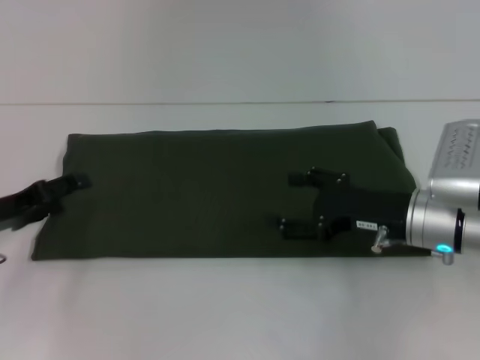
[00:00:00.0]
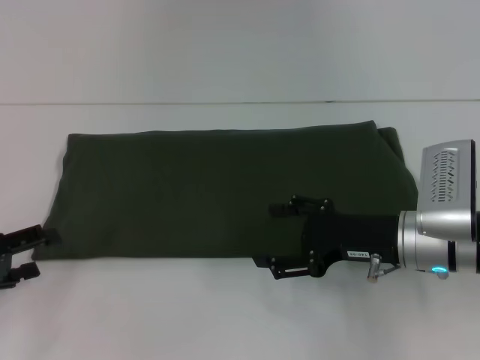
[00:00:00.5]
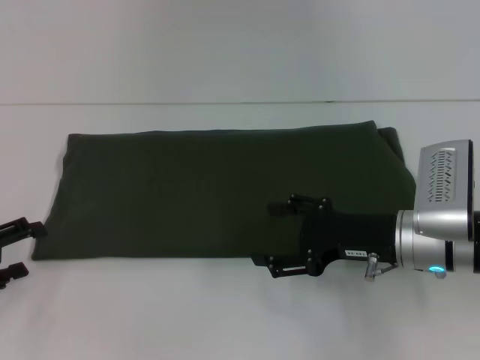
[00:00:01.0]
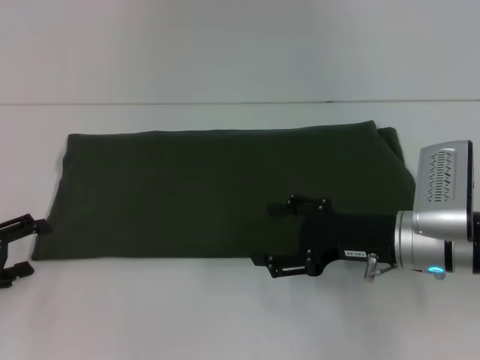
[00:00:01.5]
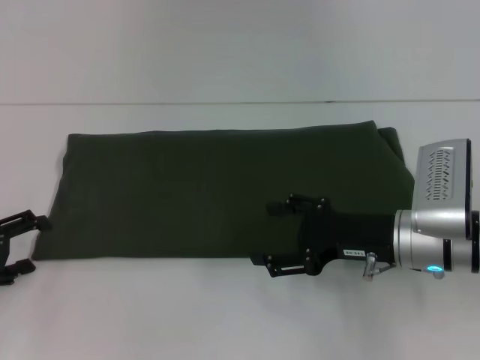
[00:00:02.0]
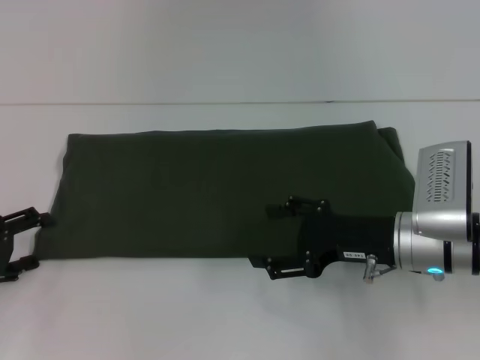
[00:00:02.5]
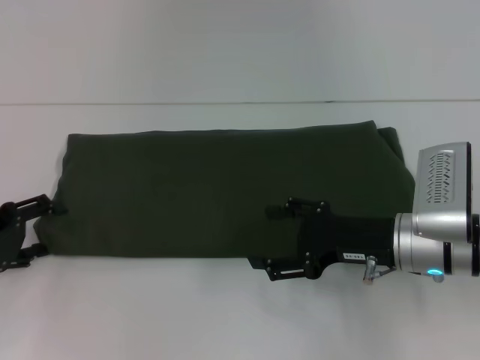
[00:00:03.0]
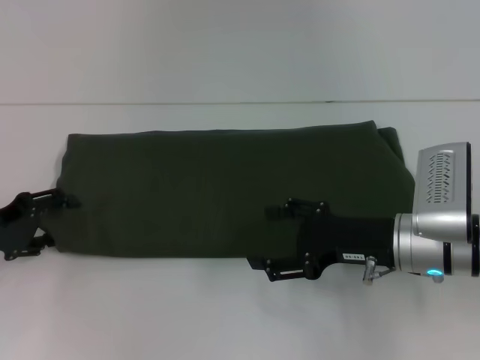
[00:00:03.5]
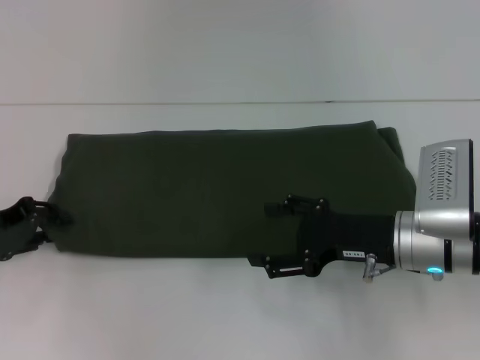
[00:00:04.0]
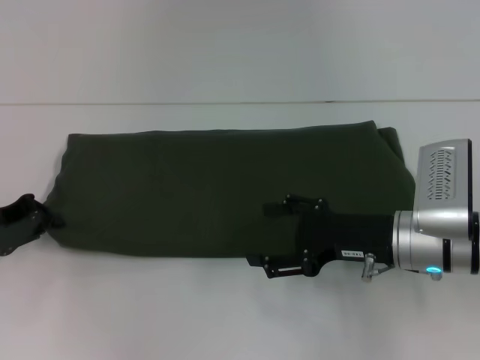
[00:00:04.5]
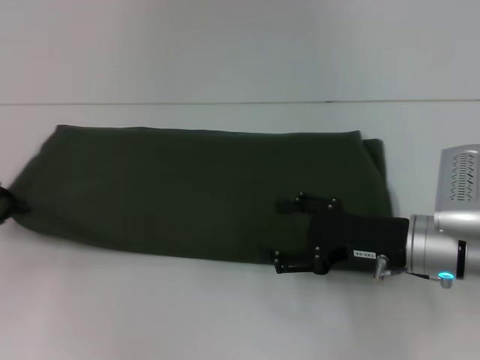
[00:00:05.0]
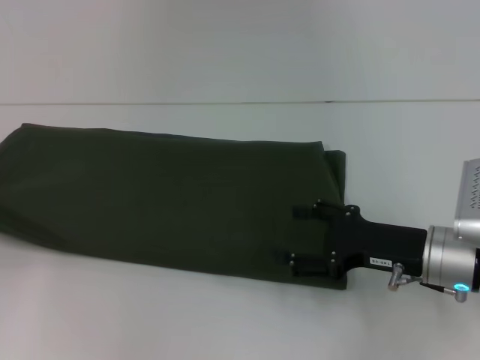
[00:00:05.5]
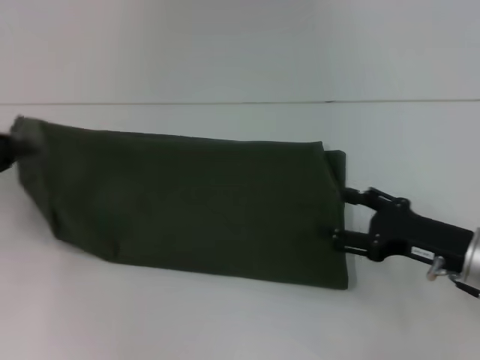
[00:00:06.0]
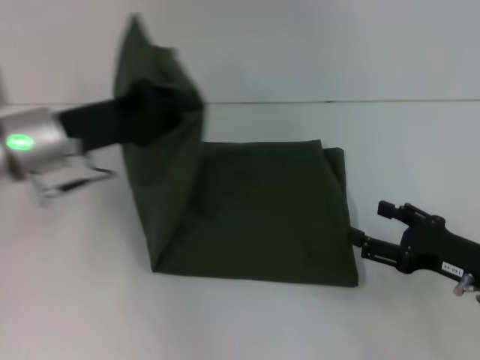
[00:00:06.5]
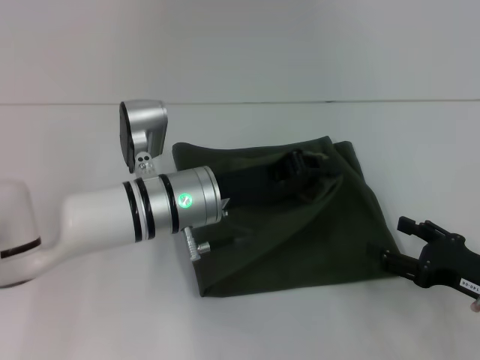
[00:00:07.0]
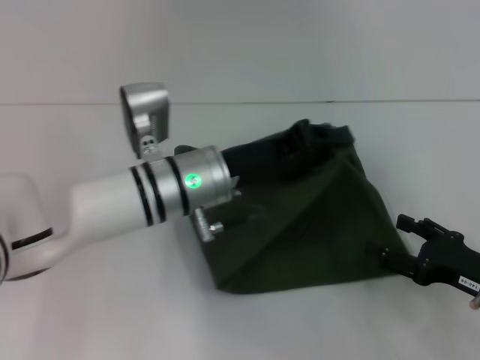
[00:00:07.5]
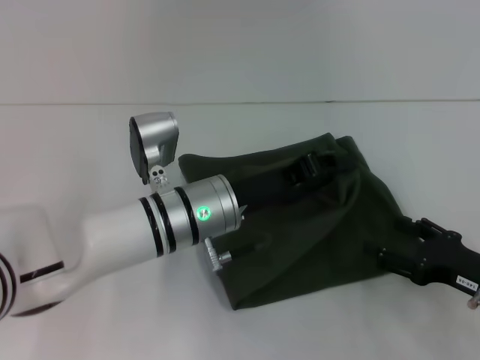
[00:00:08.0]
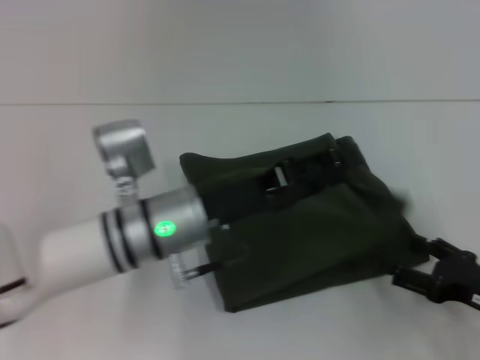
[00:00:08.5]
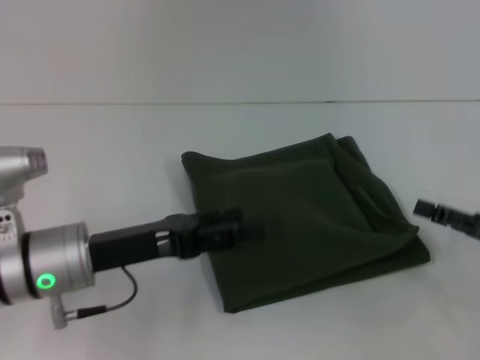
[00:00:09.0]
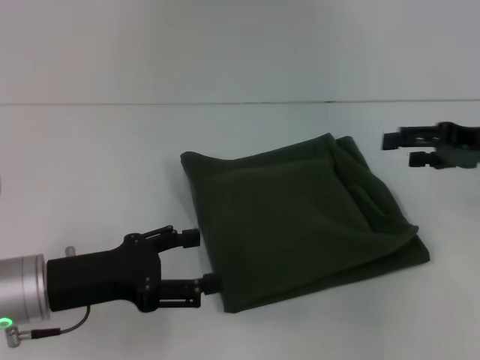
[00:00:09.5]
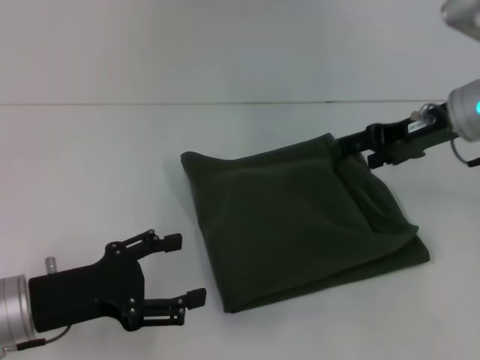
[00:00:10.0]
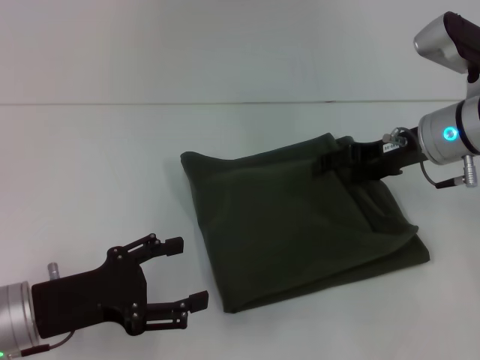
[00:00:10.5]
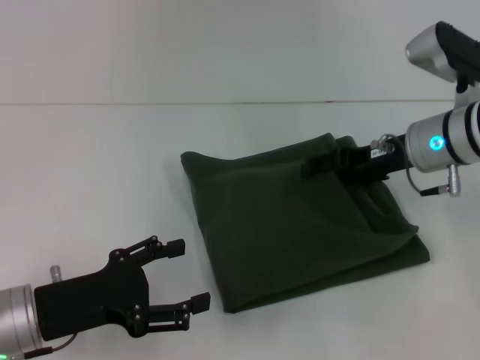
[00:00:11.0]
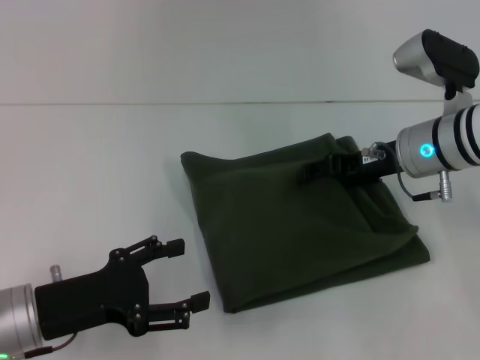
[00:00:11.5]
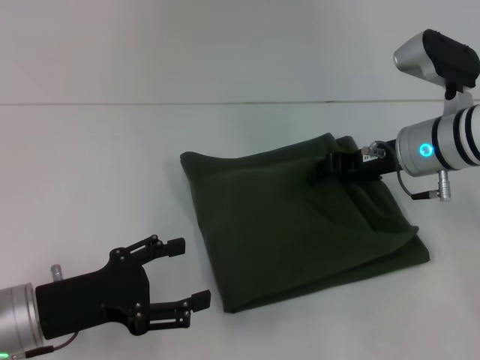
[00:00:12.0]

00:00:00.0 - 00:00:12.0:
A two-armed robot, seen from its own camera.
Step, 00:00:00.0 - 00:00:08.5: Fold the clothes with your left hand.
00:00:00.0 - 00:00:02.0: The left gripper shifts by about 5 cm.
00:00:02.0 - 00:00:04.0: The left gripper shifts by roughly 5 cm.
00:00:04.0 - 00:00:06.0: The left gripper changes place by approximately 5 cm, and closes; the right gripper is displaced to the right by roughly 5 cm.
00:00:06.0 - 00:00:08.0: The right gripper changes place by some 5 cm; the left gripper shifts roughly 30 cm to the right.
00:00:08.0 - 00:00:10.0: The left gripper travels to the left and backward by some 20 cm, and opens its fingers. The right gripper travels forward and upward by some 20 cm.
00:00:10.0 - 00:00:12.0: The right gripper shifts some 5 cm downward, and closes up.

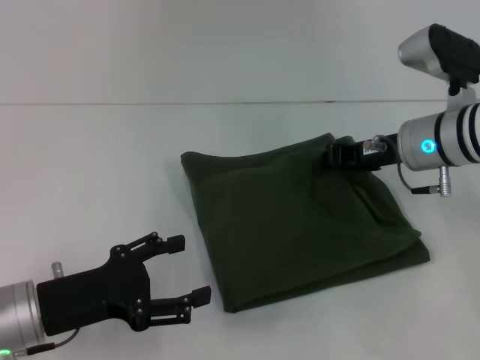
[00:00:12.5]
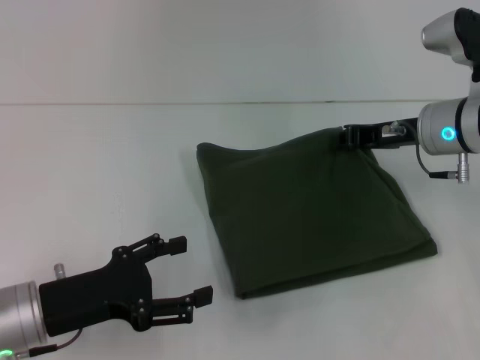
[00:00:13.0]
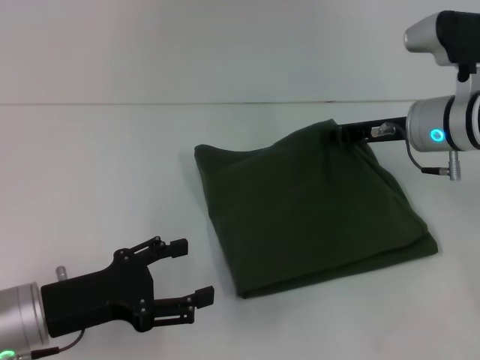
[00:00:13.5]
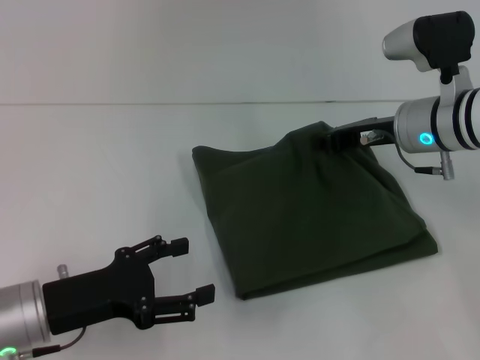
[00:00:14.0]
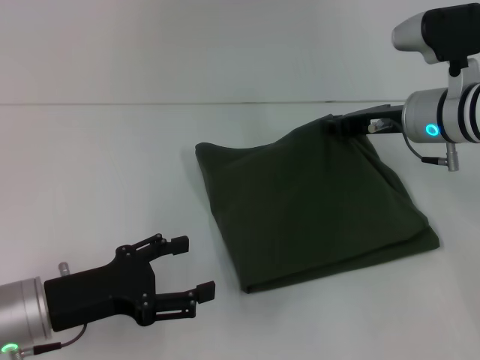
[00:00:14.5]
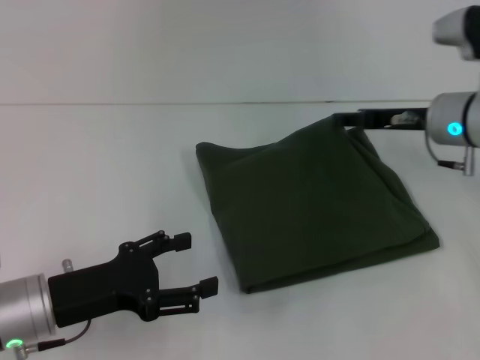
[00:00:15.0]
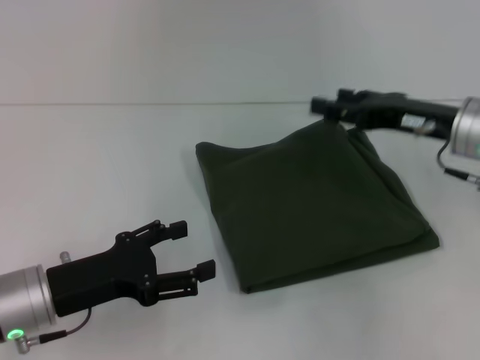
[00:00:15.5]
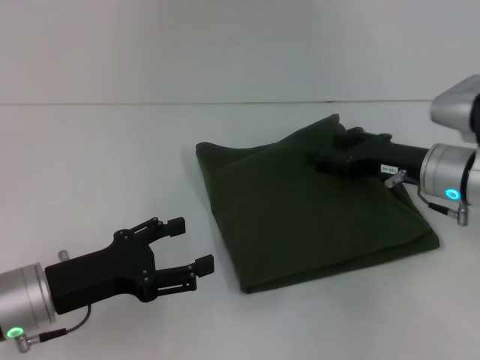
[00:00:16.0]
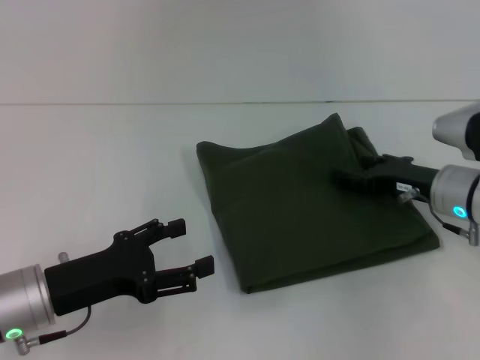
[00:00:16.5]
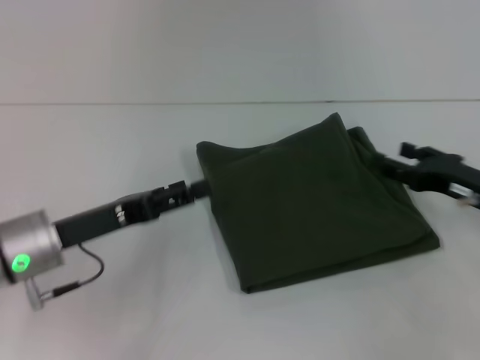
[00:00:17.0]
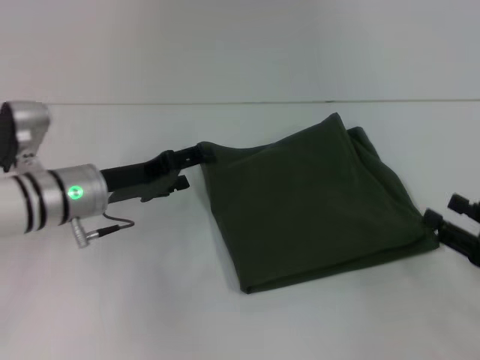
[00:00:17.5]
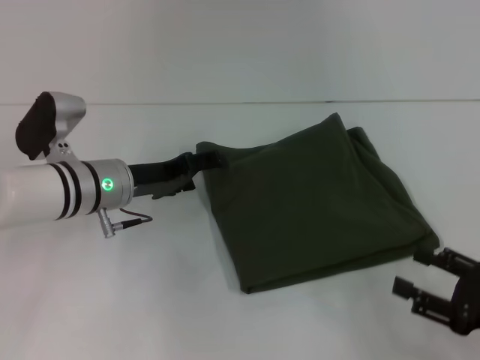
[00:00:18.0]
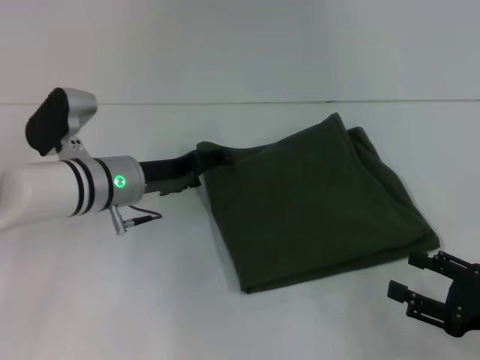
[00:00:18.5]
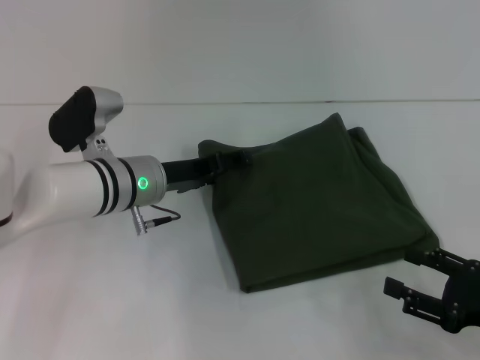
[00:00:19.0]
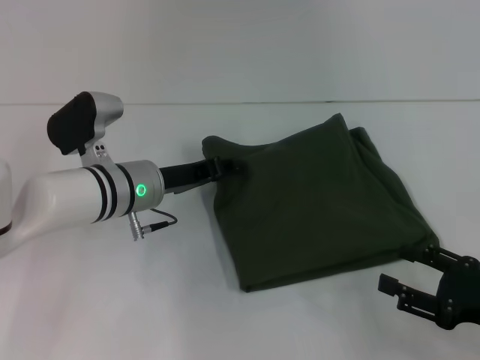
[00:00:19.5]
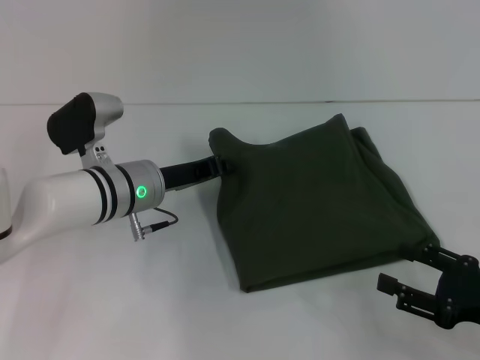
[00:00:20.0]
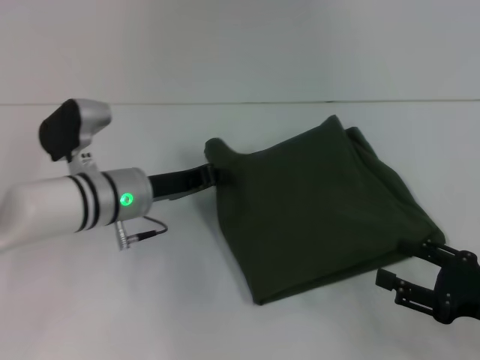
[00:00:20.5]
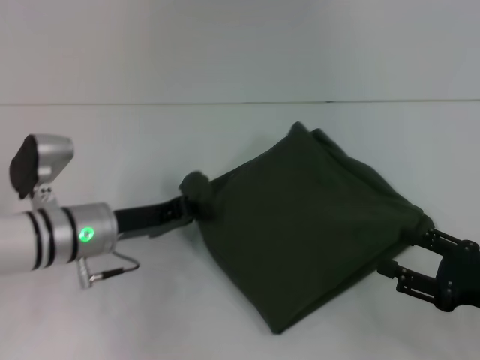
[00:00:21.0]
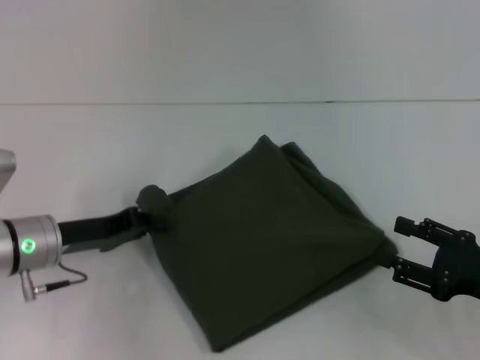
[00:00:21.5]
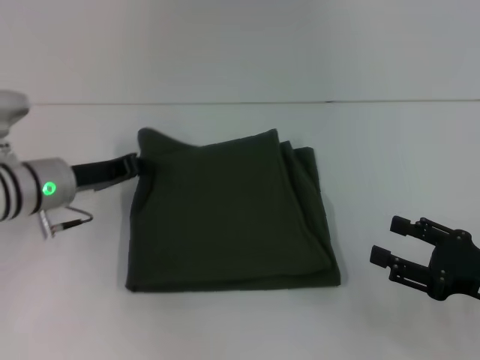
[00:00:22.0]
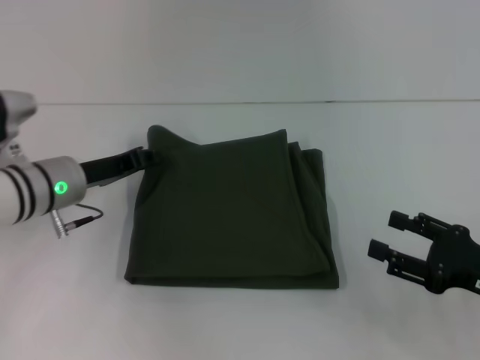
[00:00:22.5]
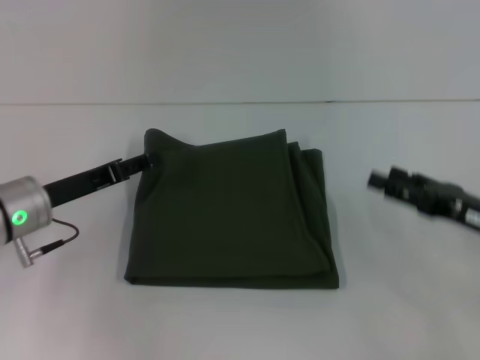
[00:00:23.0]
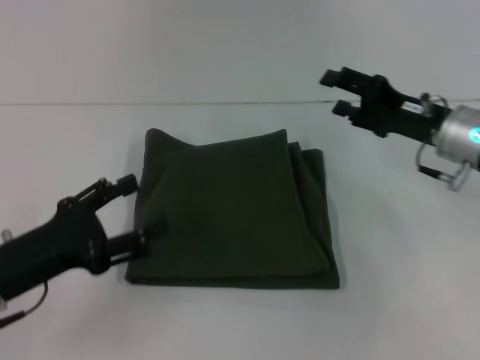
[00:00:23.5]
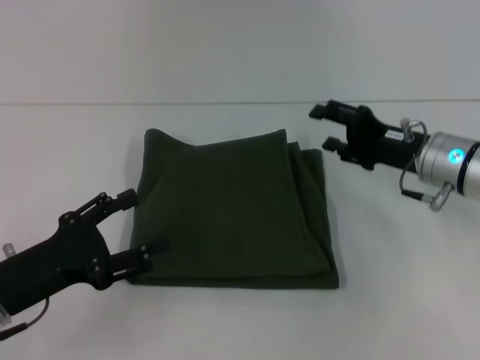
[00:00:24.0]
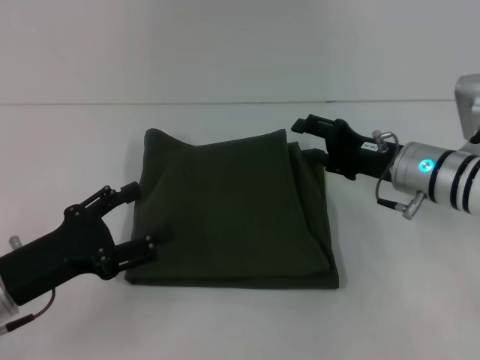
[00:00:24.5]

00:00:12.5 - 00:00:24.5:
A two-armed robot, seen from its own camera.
00:00:14.5 - 00:00:16.5: The right gripper travels downward and backward by roughly 10 cm, and opens its fingers.
00:00:16.5 - 00:00:18.5: The left gripper is displaced forward and to the right by roughly 15 cm; the right gripper travels backward and to the right by about 20 cm.
00:00:18.5 - 00:00:20.5: The left gripper closes its fingers.
00:00:20.5 - 00:00:22.5: The left gripper goes roughly 5 cm to the left.
00:00:22.5 - 00:00:24.5: The left gripper travels backward by about 15 cm, and opens; the right gripper goes roughly 15 cm forward and to the left.

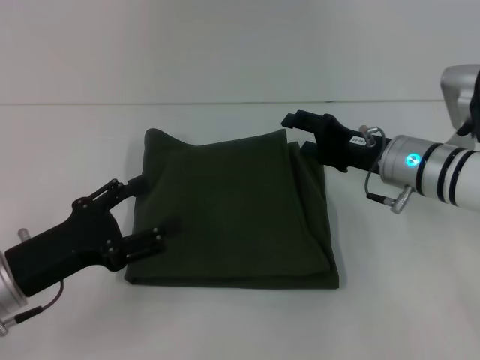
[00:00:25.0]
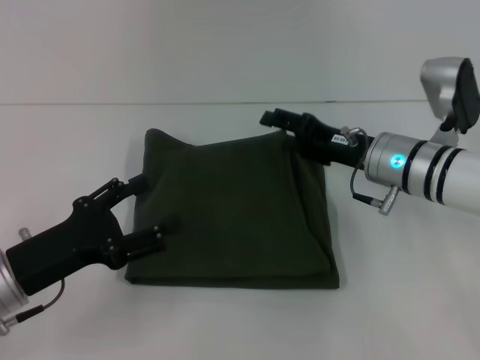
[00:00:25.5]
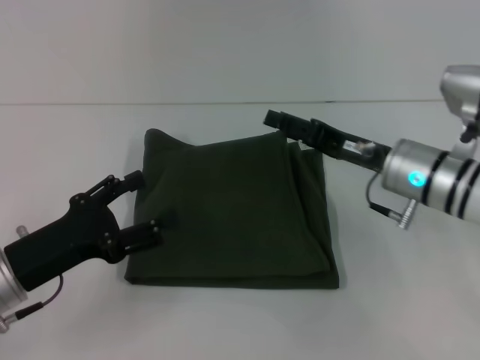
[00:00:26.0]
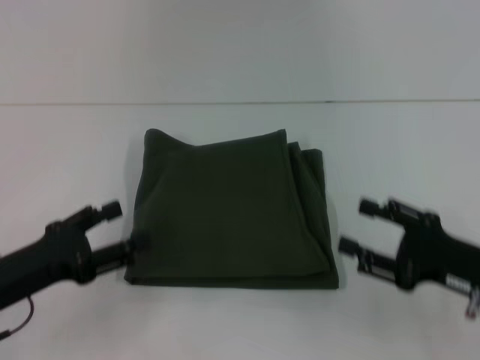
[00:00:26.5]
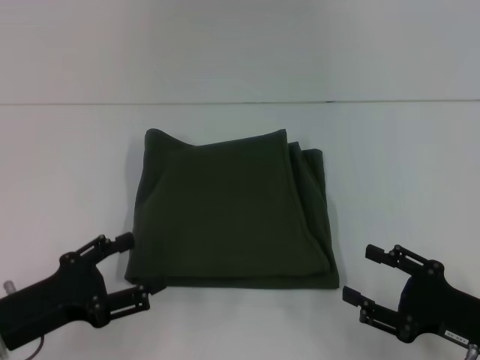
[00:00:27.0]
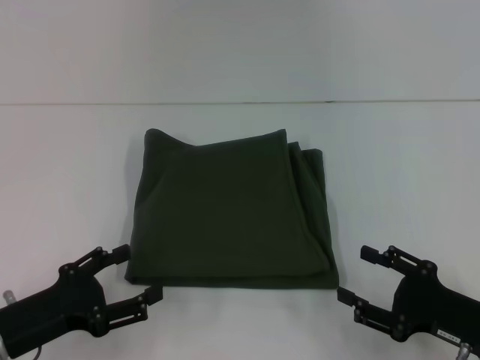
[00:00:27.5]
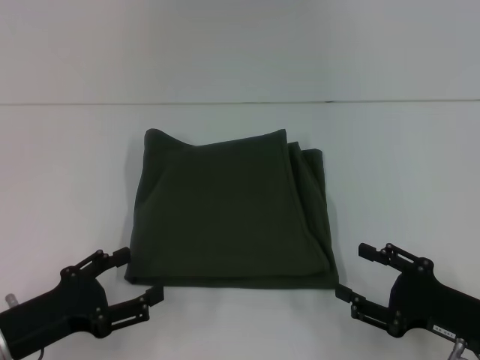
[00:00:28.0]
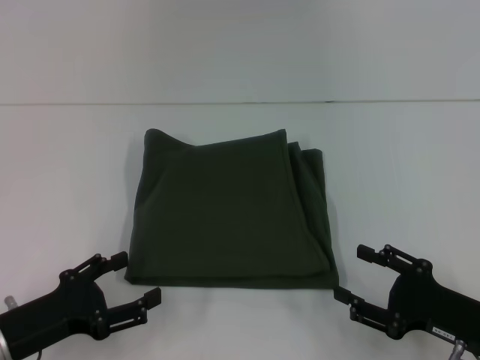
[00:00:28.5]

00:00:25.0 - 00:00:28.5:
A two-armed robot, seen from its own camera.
00:00:25.0 - 00:00:27.0: The right gripper shifts approximately 20 cm backward and to the right.
00:00:27.0 - 00:00:28.5: The grippers stay close to where they were, moving slightly.
